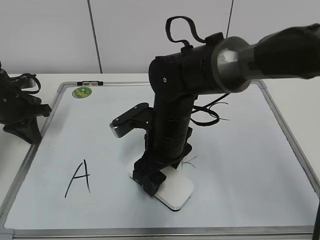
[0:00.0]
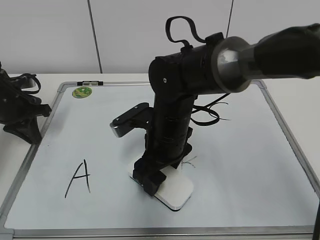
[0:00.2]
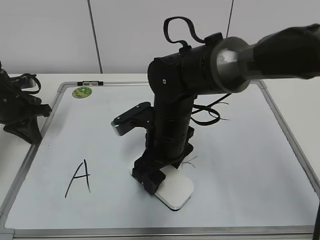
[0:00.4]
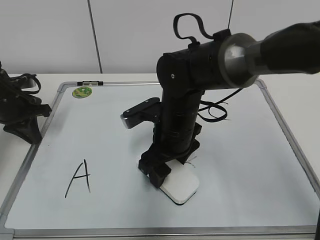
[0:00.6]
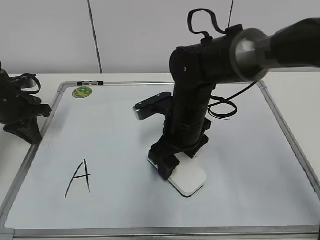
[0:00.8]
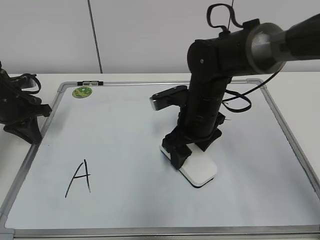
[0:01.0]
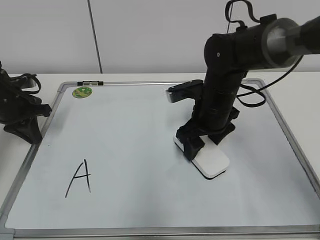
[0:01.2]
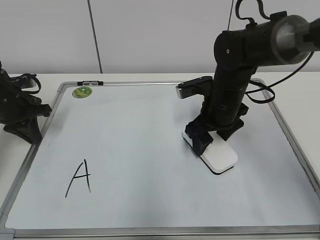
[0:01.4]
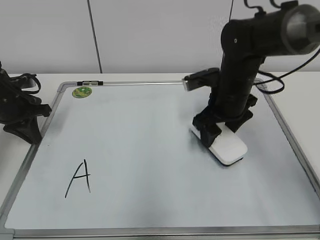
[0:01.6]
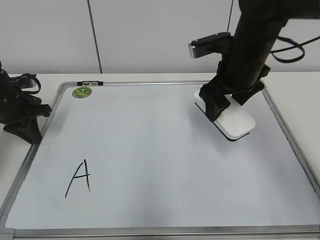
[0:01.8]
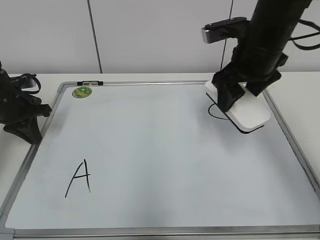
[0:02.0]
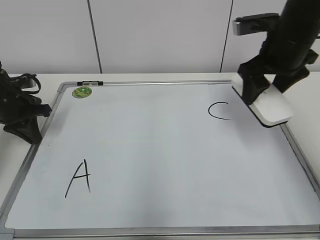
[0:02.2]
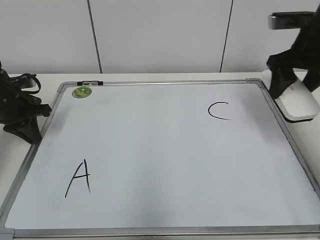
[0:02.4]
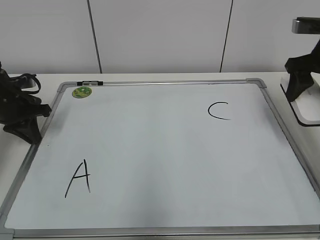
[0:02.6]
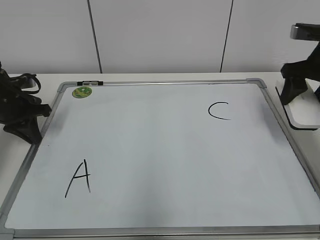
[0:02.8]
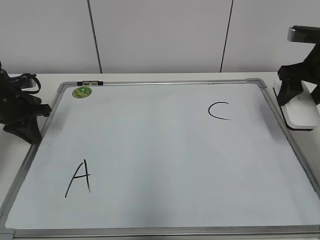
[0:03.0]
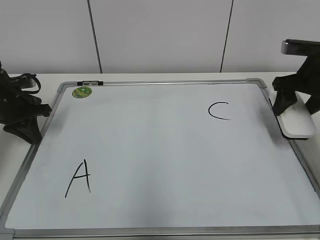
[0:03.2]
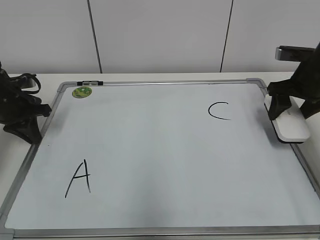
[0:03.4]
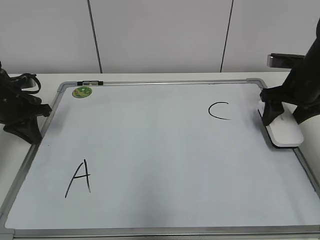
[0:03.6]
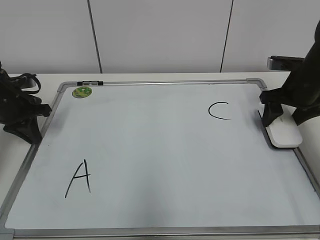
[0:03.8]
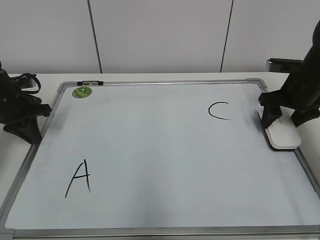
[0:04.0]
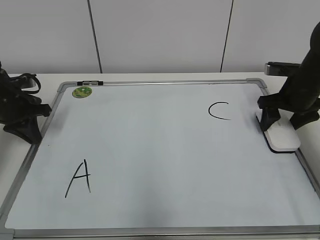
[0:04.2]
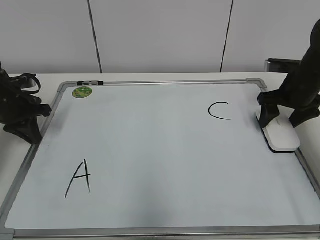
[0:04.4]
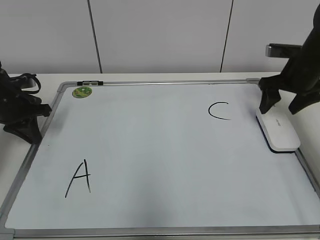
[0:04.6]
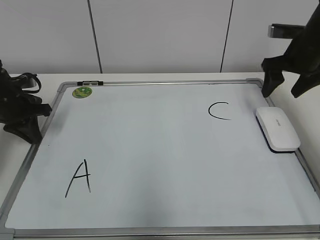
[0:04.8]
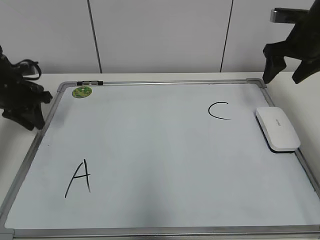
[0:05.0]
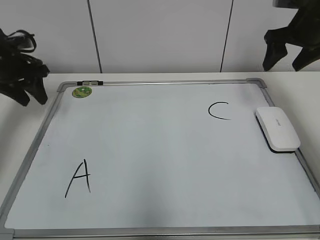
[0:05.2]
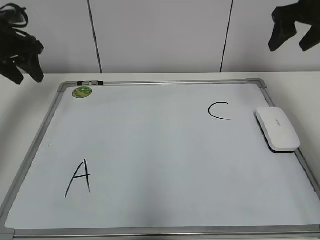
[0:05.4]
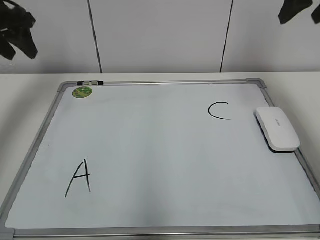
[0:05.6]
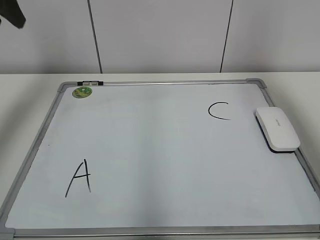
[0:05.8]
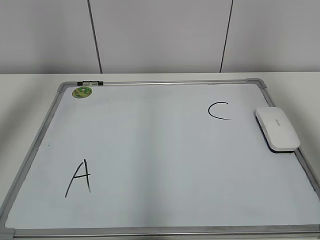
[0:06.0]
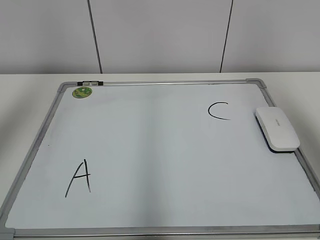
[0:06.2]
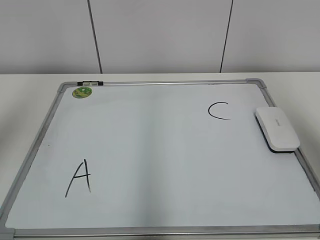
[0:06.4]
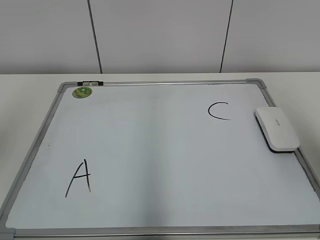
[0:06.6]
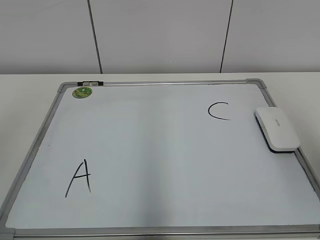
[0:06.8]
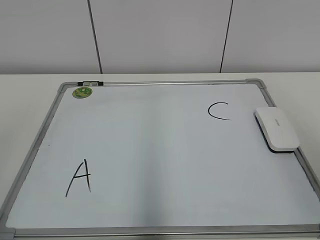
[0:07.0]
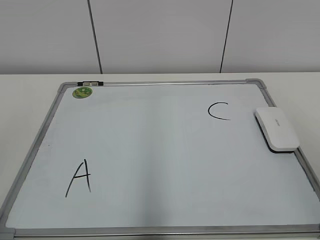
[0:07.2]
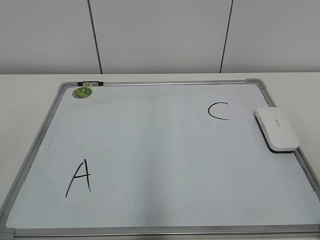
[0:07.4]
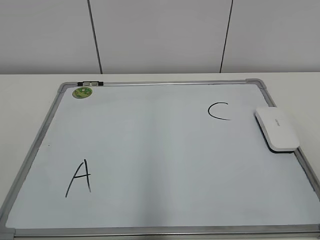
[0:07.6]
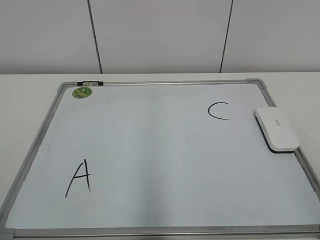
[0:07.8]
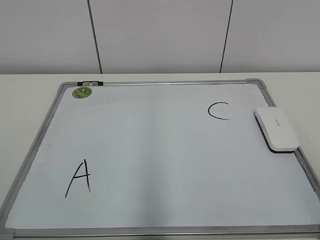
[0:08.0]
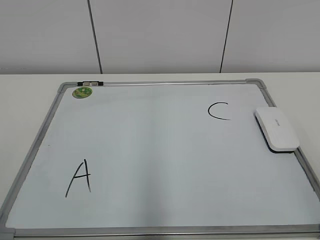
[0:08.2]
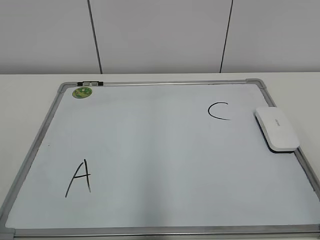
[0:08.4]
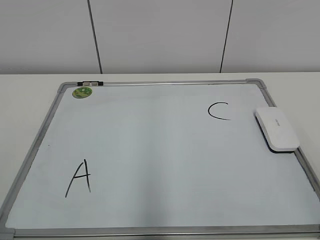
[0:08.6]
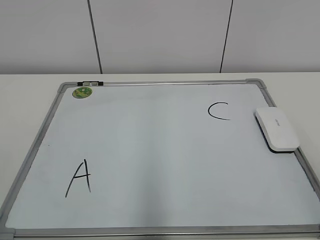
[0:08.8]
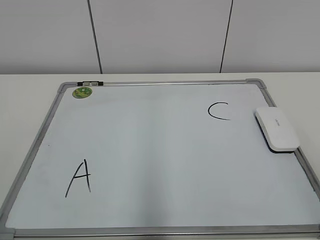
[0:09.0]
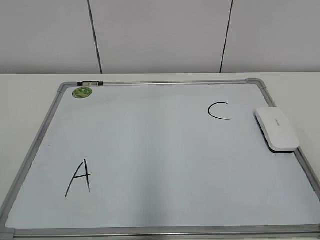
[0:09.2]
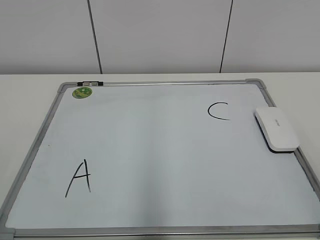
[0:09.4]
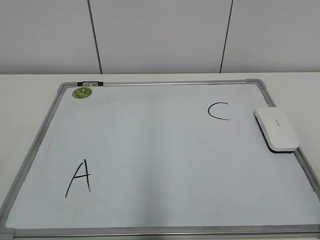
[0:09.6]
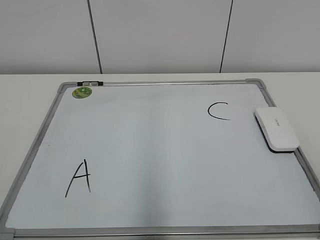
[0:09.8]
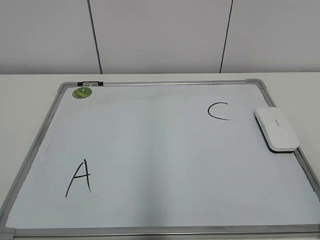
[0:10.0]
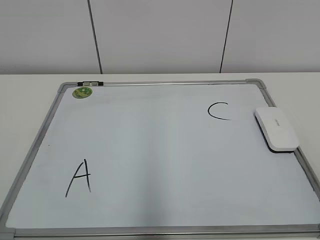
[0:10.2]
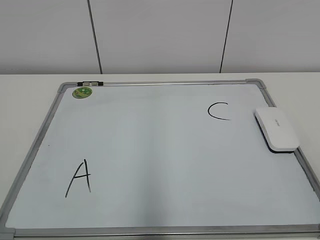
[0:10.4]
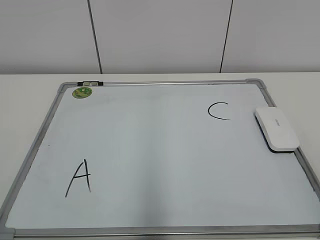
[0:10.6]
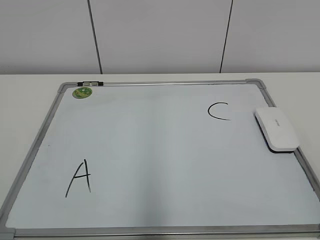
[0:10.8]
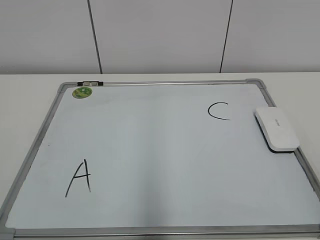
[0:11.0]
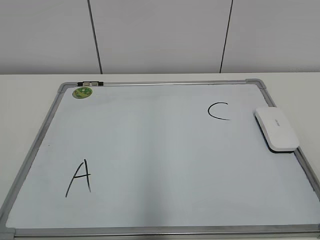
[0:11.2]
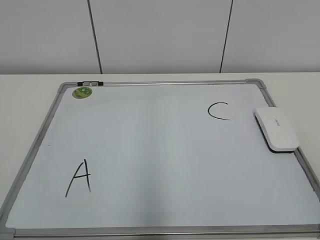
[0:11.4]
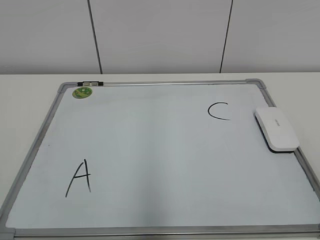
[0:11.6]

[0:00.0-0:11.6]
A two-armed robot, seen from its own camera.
Task of the whole recording: pick up the eraser on the blackboard and erase the letter "B".
Step, 0:01.6 to 0:04.4: Put down the eraser with your right hand.
0:00.0 to 0:01.4: The right gripper moves to the right and forward, some 15 cm.
0:01.4 to 0:02.8: The right gripper moves to the right and upward, roughly 20 cm.
0:02.8 to 0:04.4: The right gripper is displaced downward by about 10 cm, and opens its fingers.
0:04.4 to 0:05.8: Both grippers move upward, roughly 25 cm. The left gripper opens.
0:05.8 to 0:07.2: The grippers both shift backward by some 35 cm.
0:10.2 to 0:11.6: Both grippers stay put.
